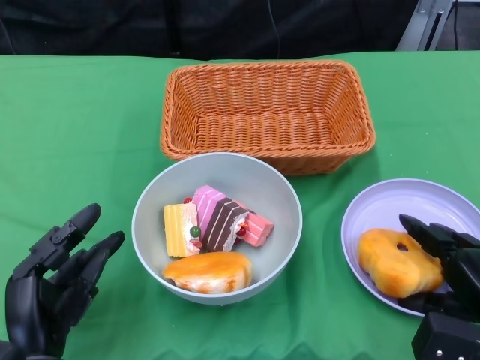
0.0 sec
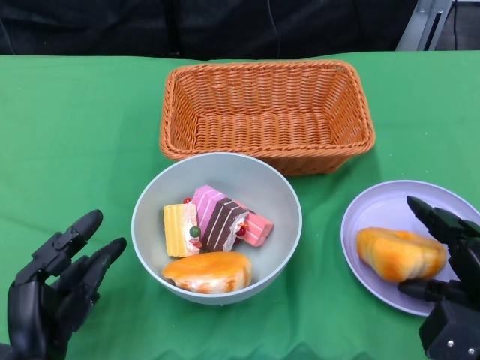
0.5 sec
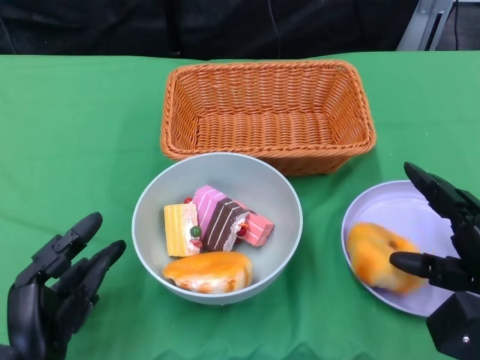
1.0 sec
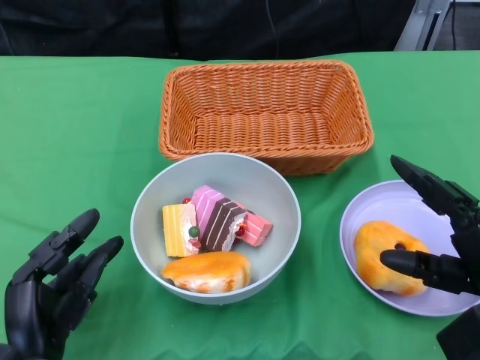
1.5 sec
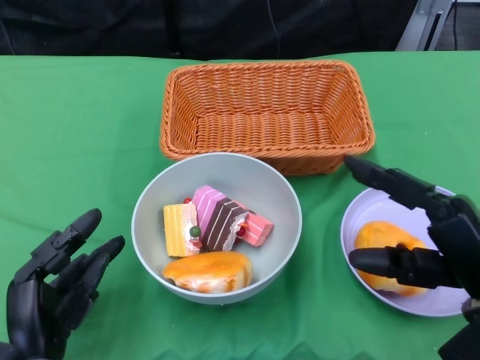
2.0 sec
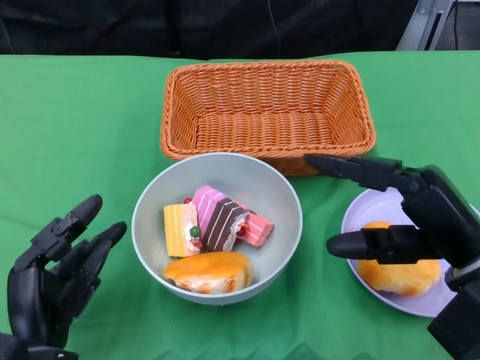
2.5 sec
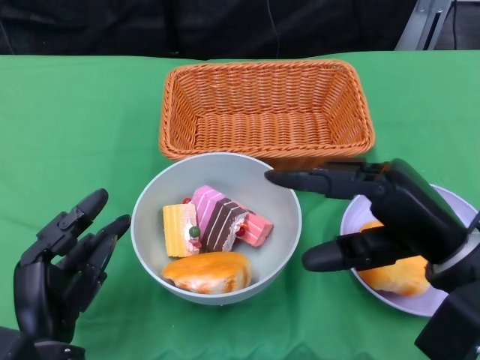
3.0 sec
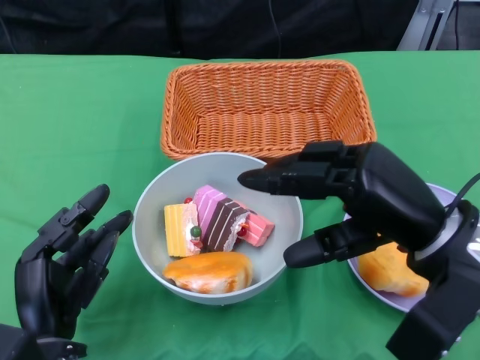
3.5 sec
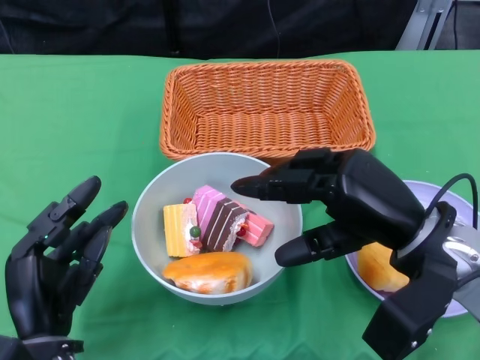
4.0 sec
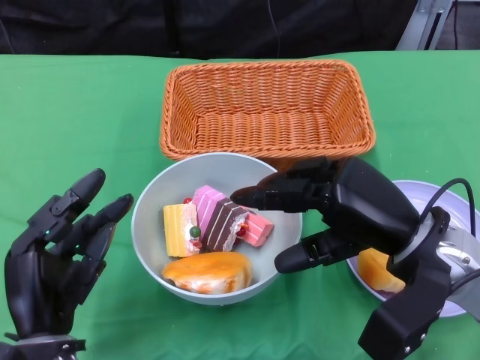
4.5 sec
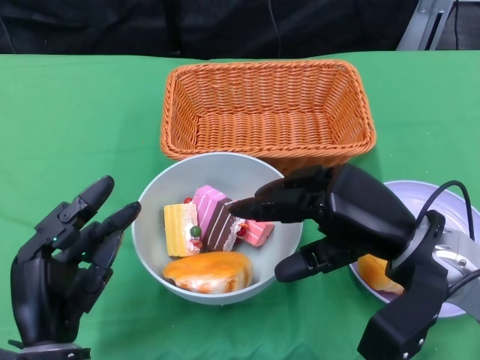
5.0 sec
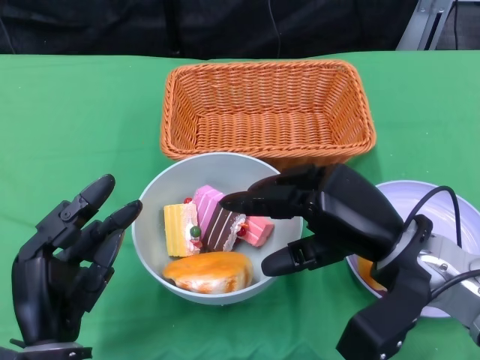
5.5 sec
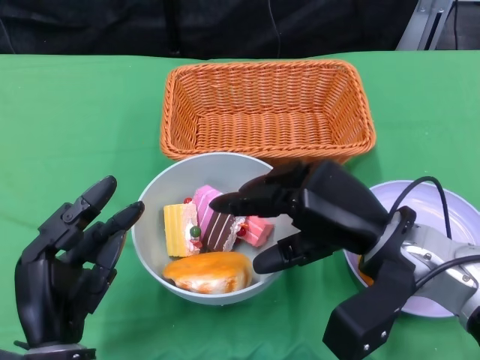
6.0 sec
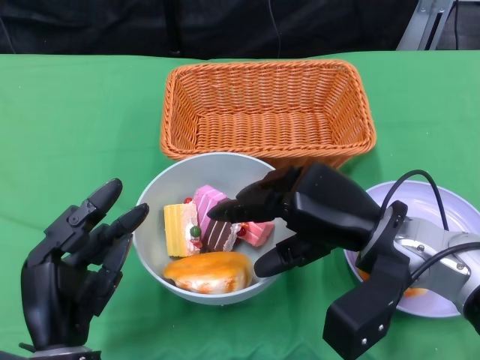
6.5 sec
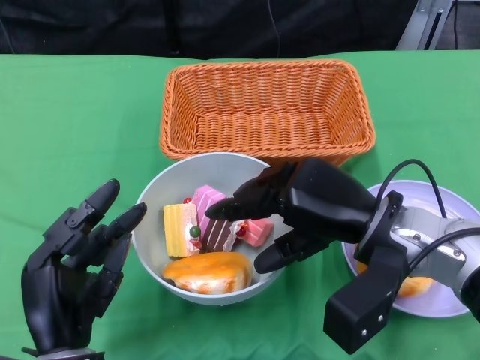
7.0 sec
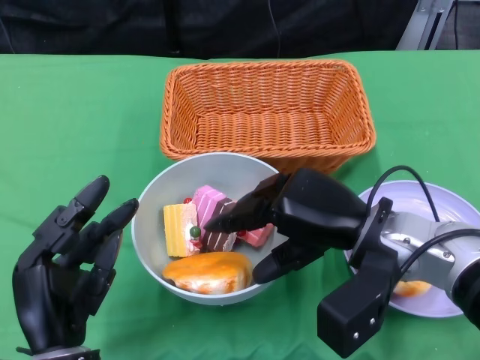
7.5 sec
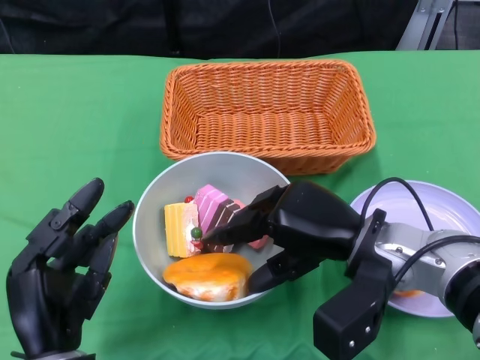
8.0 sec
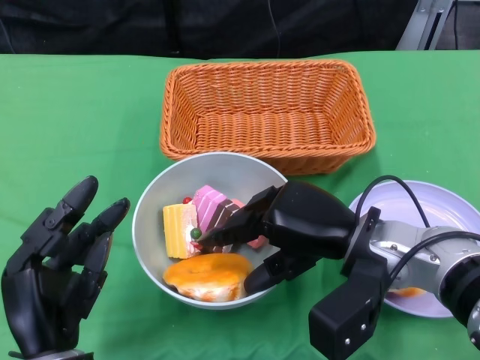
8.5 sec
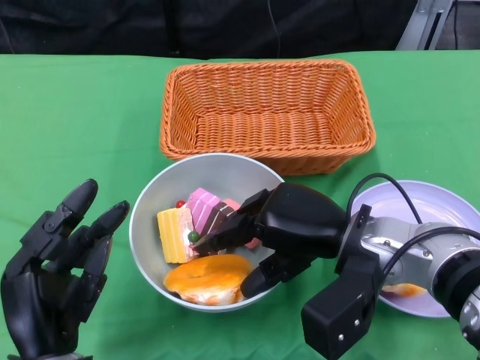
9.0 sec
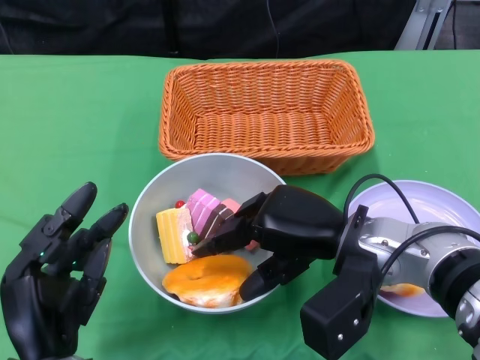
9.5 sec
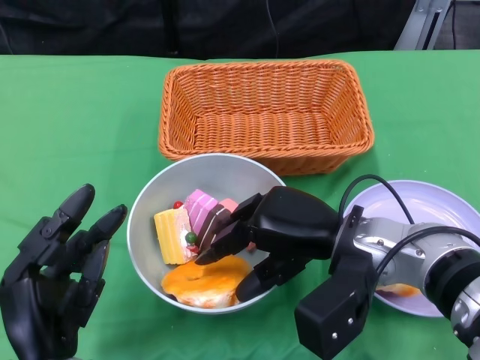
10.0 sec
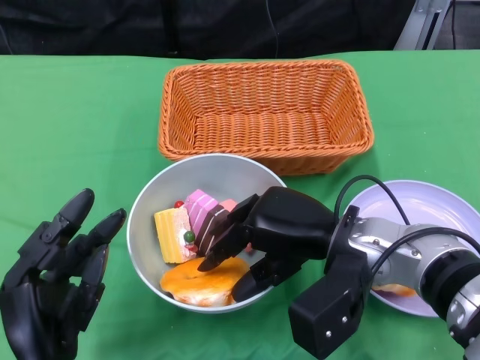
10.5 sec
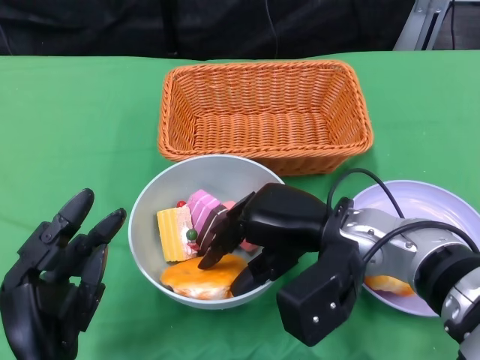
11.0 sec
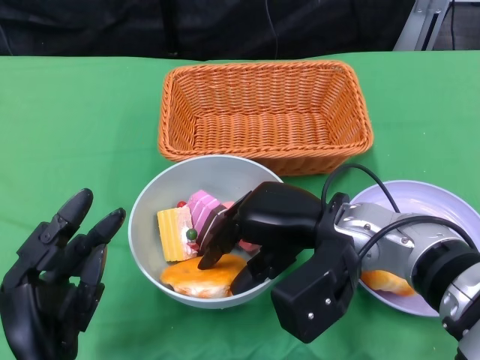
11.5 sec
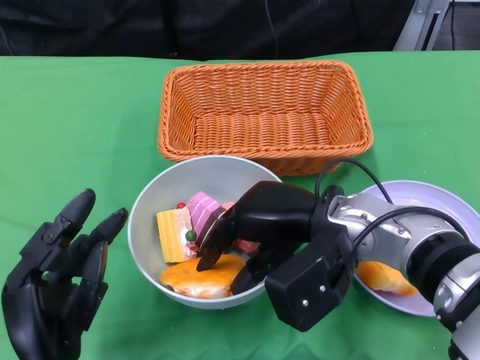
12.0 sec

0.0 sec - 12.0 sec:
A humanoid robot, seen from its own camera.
0.0 sec - 2.0 sec: The right hand heads upward, covering about 10 cm.
2.0 sec - 4.0 sec: The right hand shifts approximately 10 cm to the left and forward.
6.0 sec - 8.0 sec: The hands stay close to where they were, moving slightly.
8.0 sec - 10.0 sec: The hands stay close to where they were, moving slightly.
10.0 sec - 12.0 sec: The hands make only small movements.

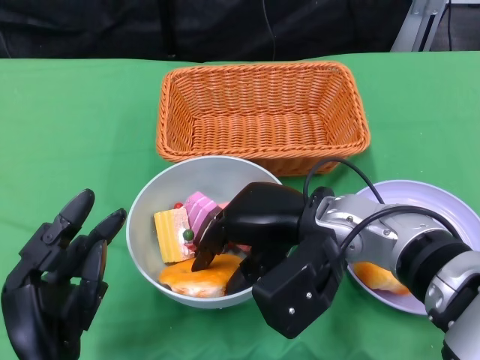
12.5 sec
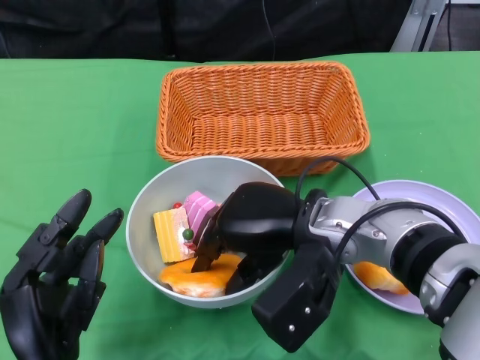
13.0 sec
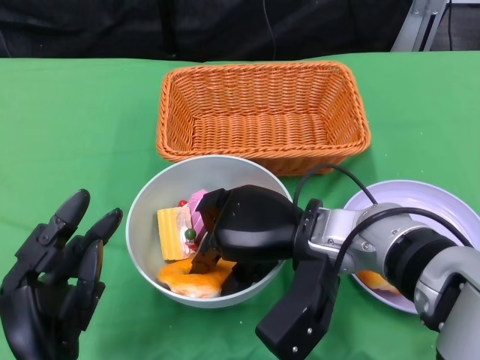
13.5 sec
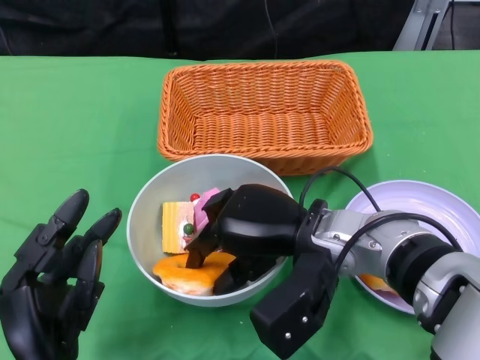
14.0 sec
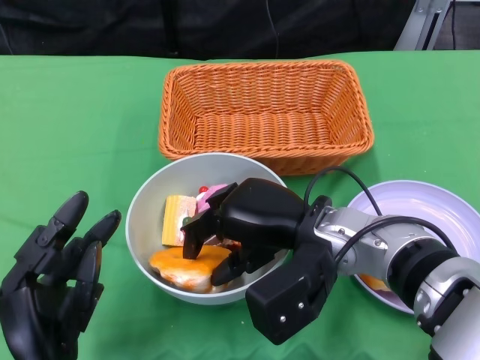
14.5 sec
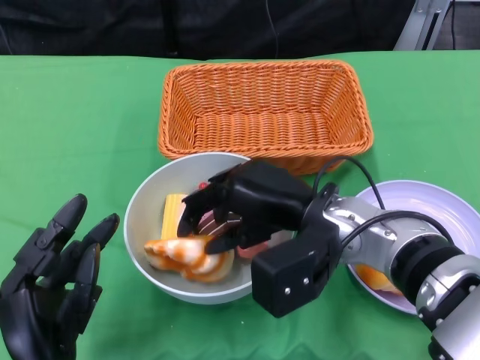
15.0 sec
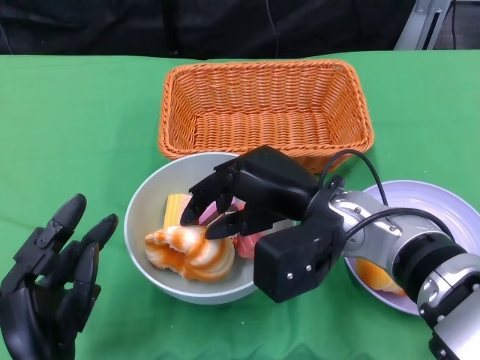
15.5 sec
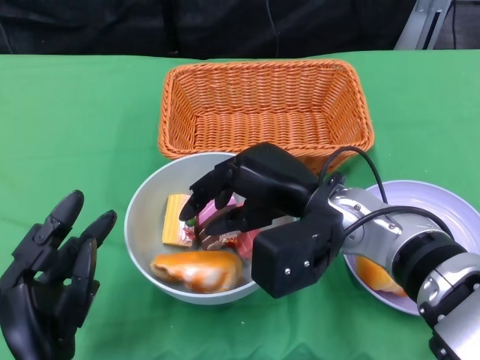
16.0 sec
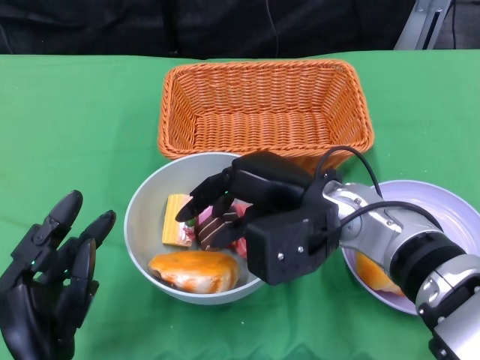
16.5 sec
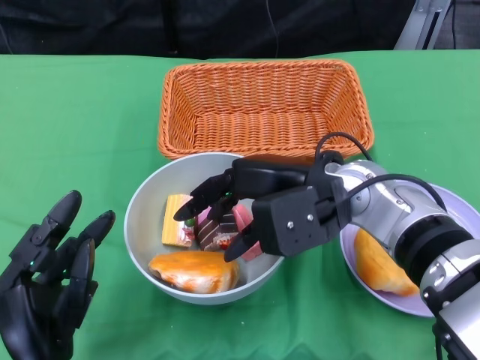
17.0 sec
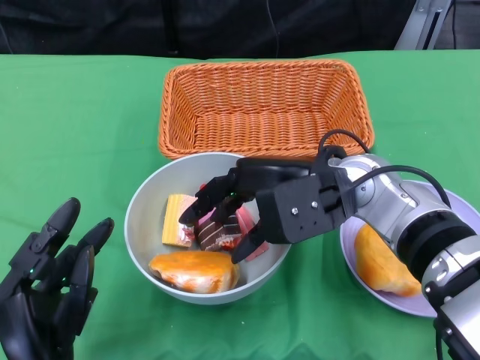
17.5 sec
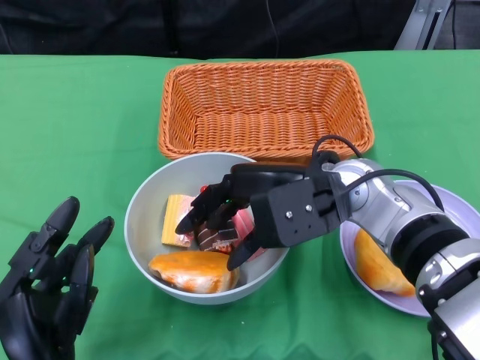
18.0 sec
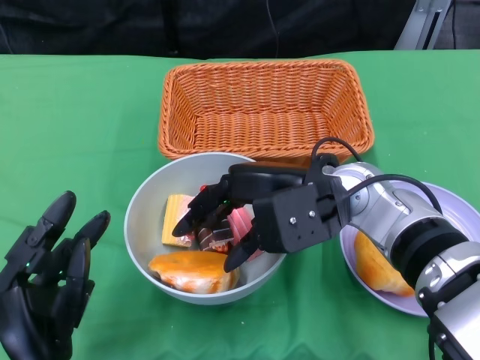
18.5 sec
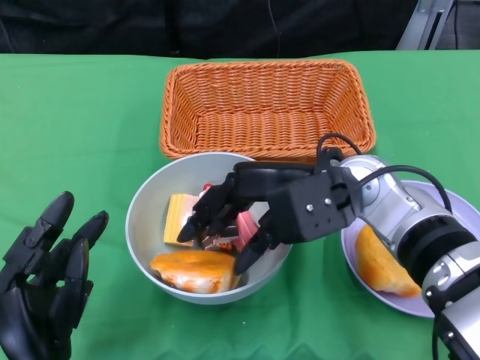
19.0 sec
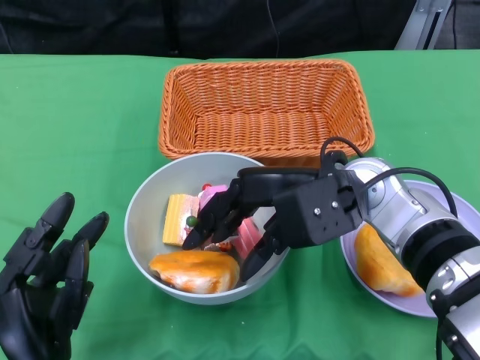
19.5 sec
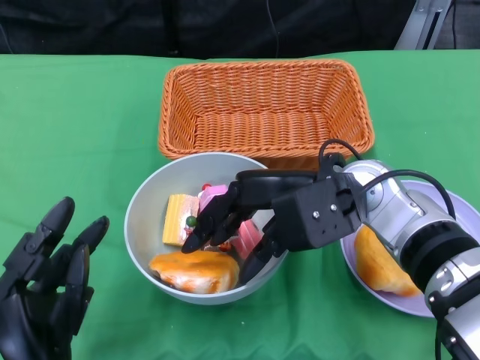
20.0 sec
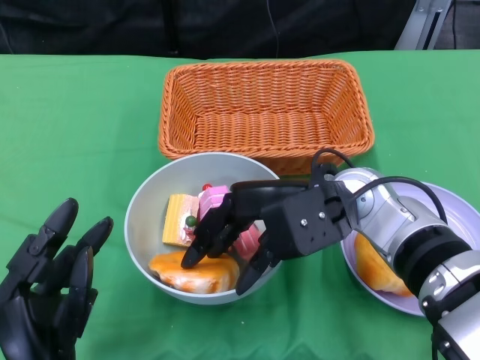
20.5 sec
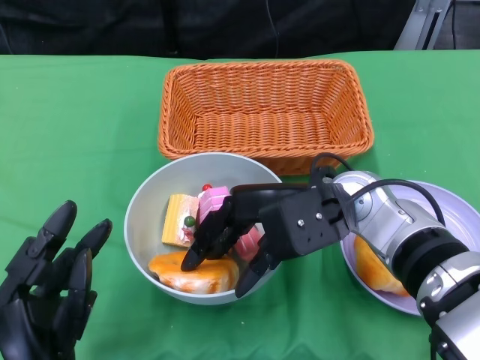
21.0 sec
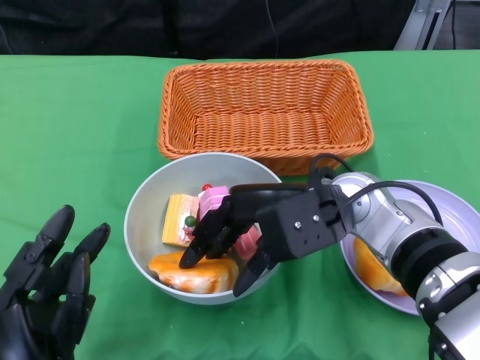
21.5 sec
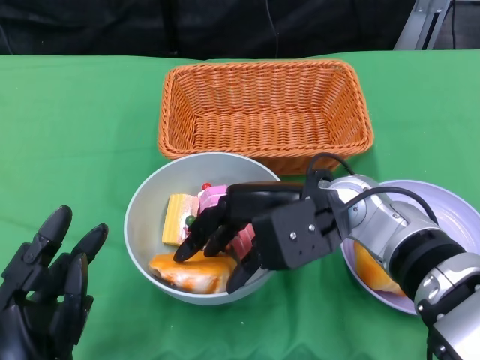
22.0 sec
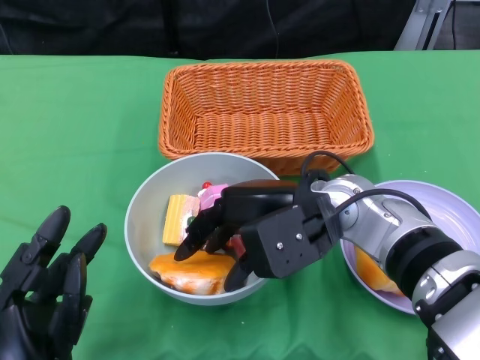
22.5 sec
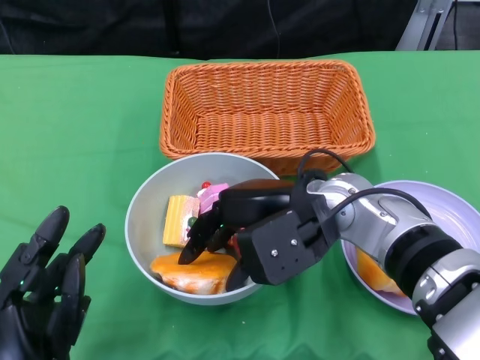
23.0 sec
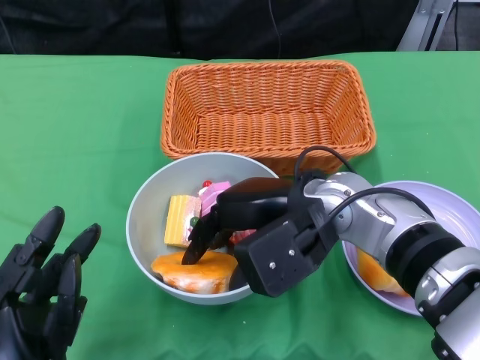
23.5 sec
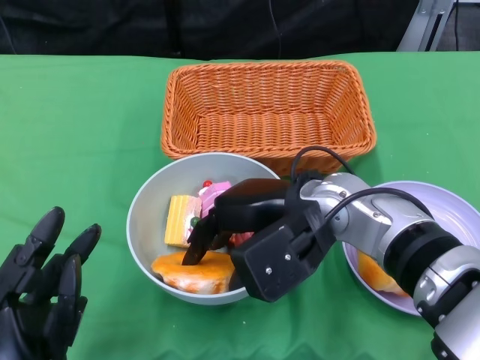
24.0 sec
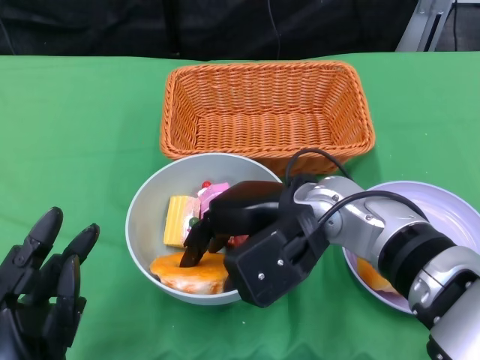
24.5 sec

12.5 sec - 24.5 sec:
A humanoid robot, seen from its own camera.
12.5 sec - 14.5 sec: There are only small adjustments of the hands.
14.5 sec - 16.5 sec: The hands stay close to where they were, moving slightly.
18.5 sec - 24.5 sec: The hands stay close to where they were, moving slightly.

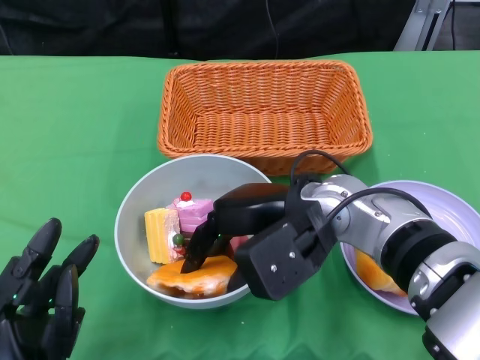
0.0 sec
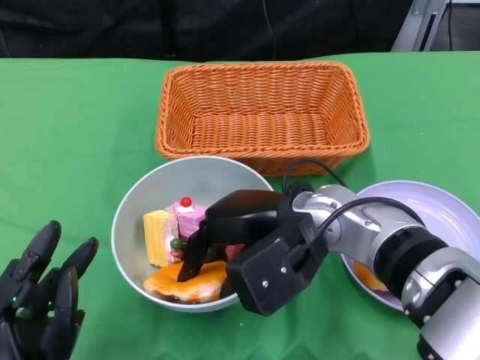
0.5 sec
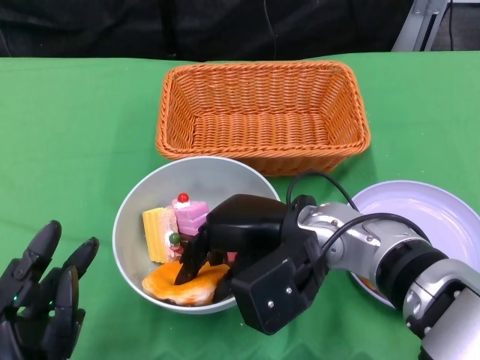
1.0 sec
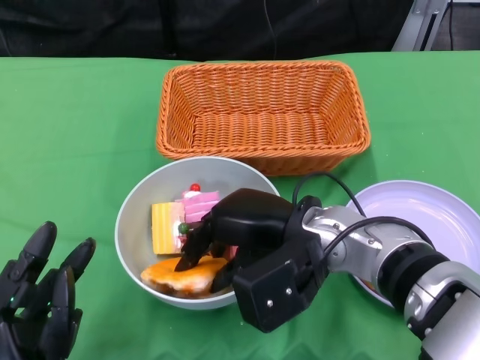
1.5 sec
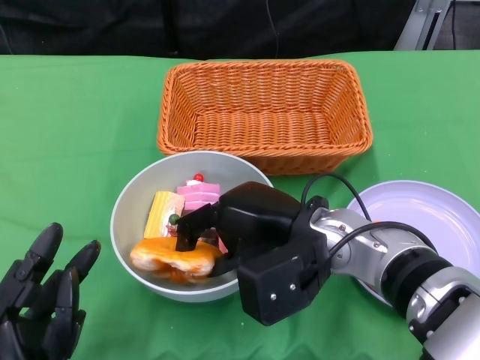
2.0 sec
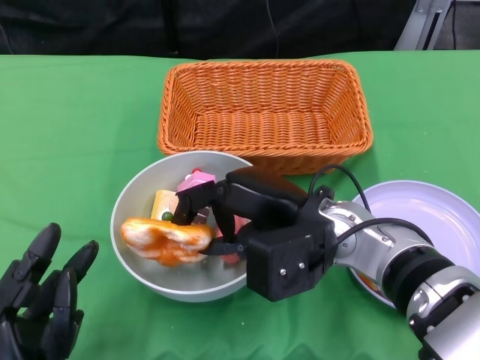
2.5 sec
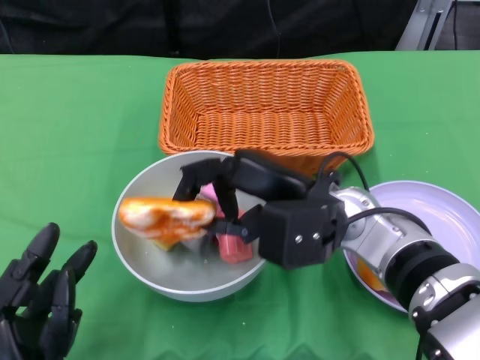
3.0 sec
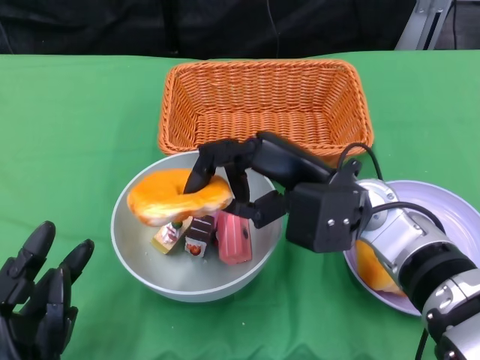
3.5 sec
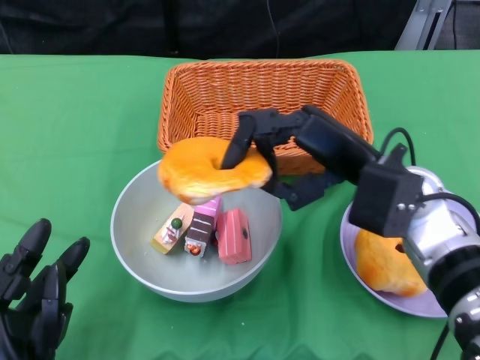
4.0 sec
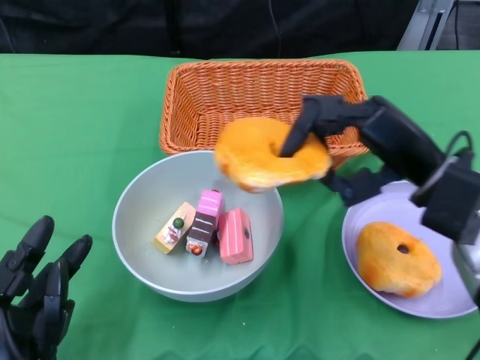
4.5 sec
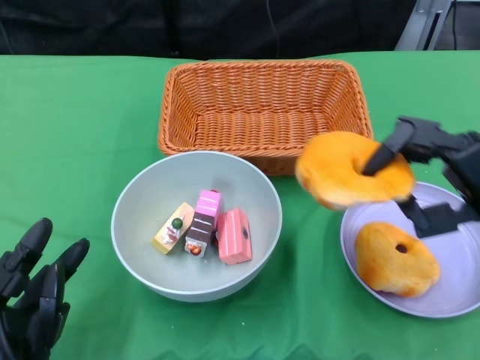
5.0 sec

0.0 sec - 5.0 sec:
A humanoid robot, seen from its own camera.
2.5 sec - 5.0 sec: The right hand goes some 15 cm to the right.
